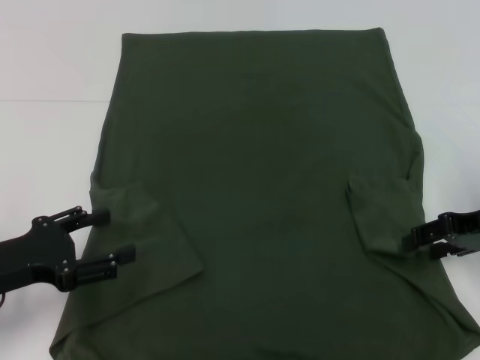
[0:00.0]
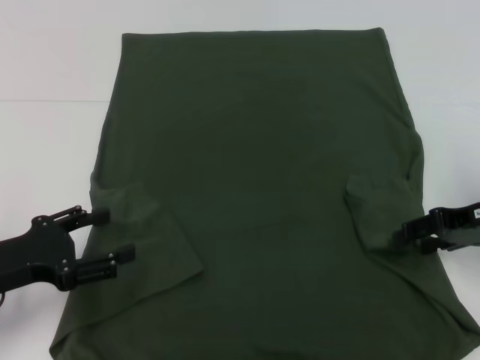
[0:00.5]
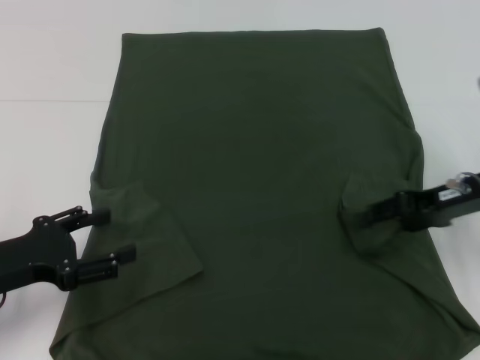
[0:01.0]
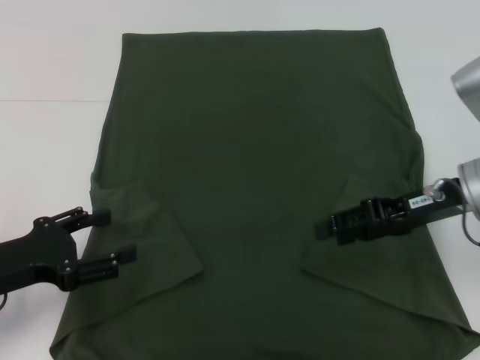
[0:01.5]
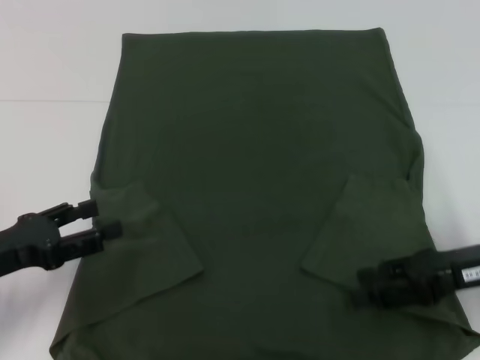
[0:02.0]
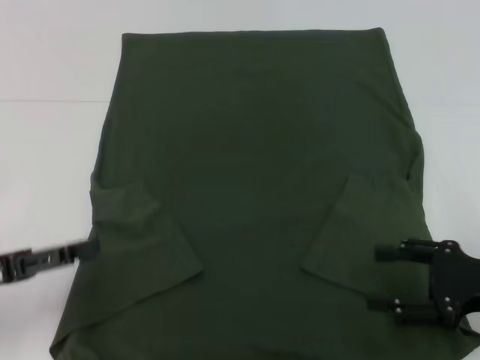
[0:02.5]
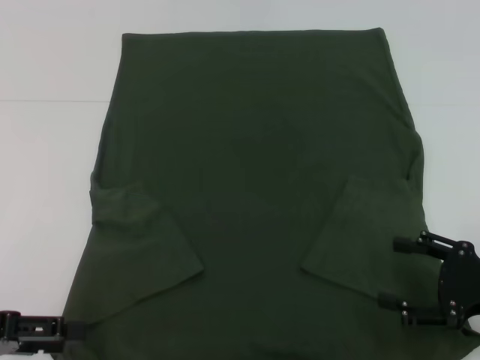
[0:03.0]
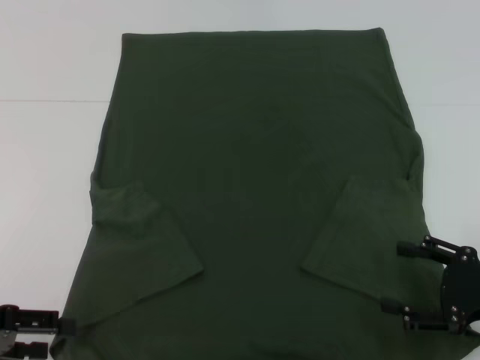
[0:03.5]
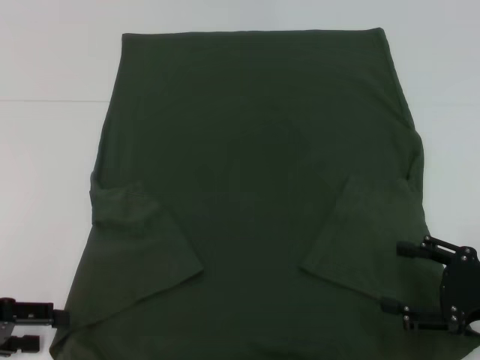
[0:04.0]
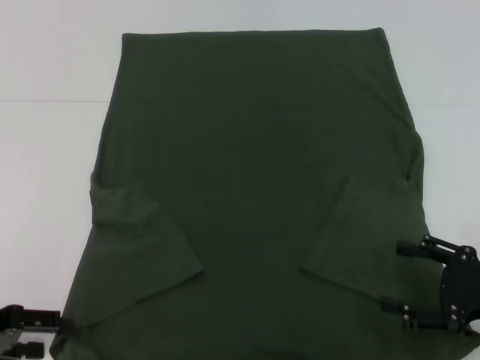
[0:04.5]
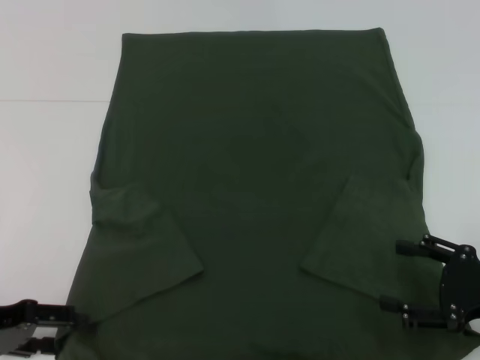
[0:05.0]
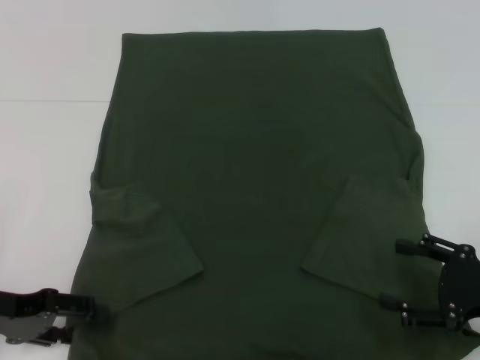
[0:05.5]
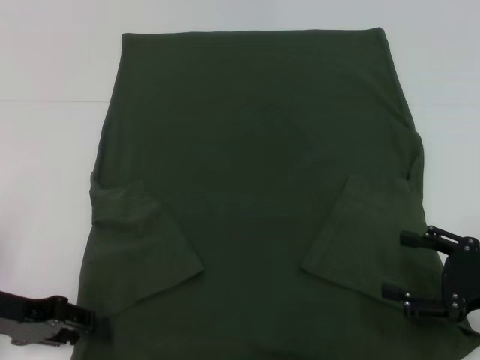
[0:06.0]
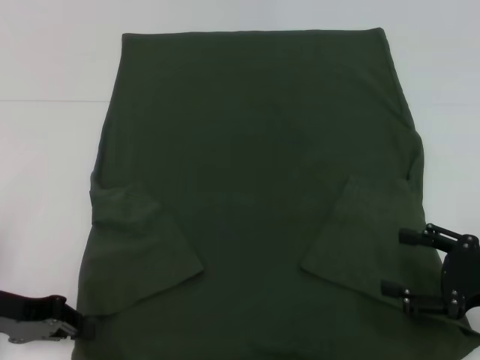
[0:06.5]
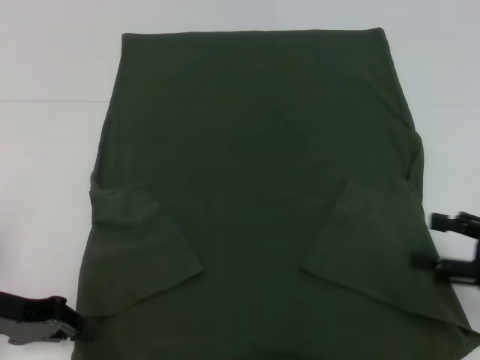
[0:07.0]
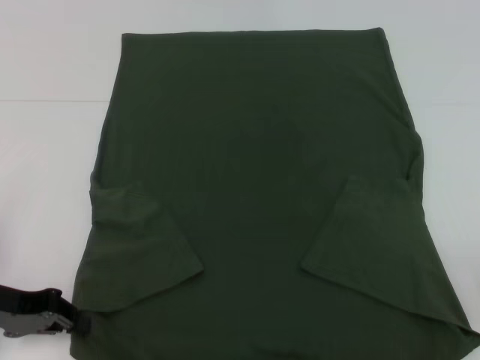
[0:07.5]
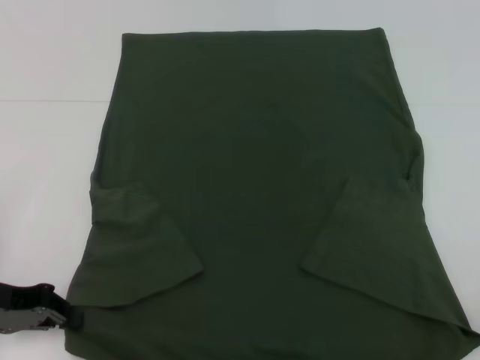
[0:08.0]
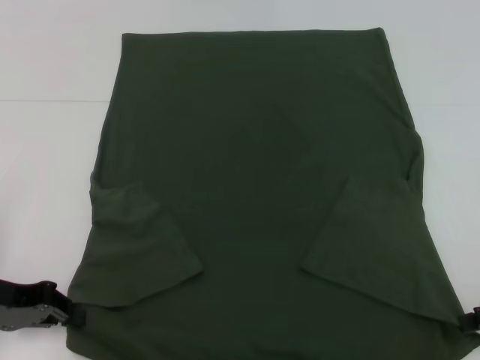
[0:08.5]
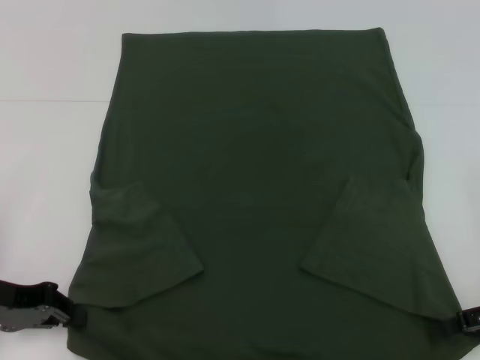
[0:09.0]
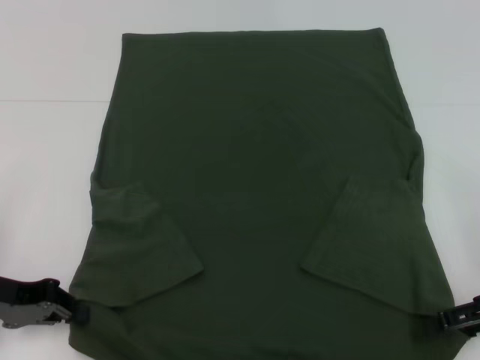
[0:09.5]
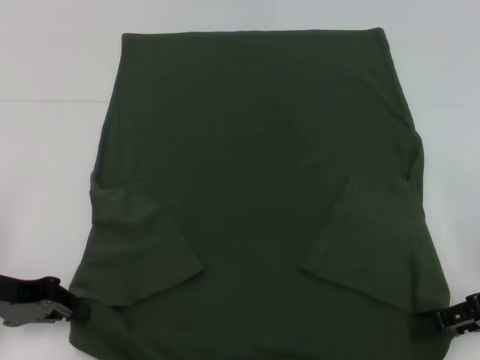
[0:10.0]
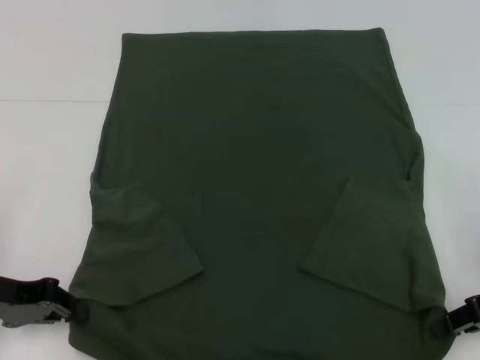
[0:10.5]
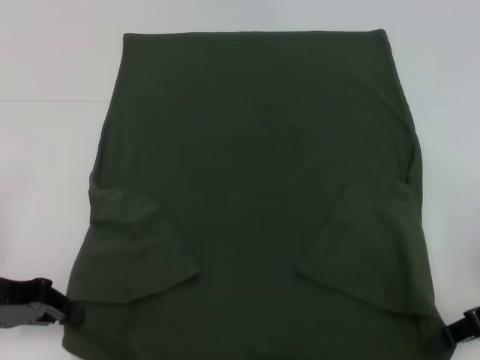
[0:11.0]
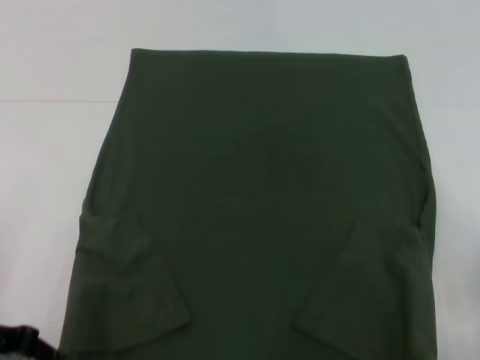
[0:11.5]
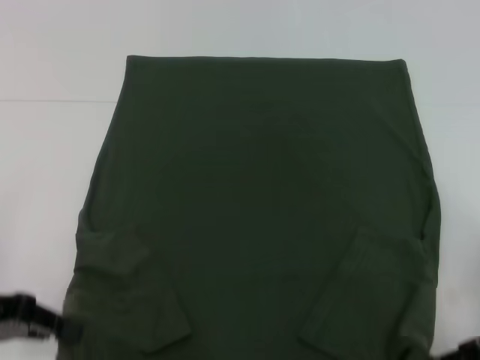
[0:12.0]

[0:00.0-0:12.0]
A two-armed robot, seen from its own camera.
Step, 0:02.0 to 0:06.5: Grab the bottom left corner with your left hand.
Step, 0:07.0 to 0:10.5: Grab the bottom right corner with your right hand.
0:00.0 to 0:02.0: The right gripper moves backward, roughly 5 cm.
0:02.0 to 0:04.0: The right gripper goes approximately 5 cm backward.
0:04.0 to 0:06.0: The left gripper shifts by some 5 cm.
0:06.0 to 0:08.0: The left gripper closes its fingers; the right gripper heads to the right and upward, covering about 10 cm.
0:08.0 to 0:10.0: The right gripper travels to the left by about 5 cm.
0:10.0 to 0:12.0: The right gripper closes its fingers.

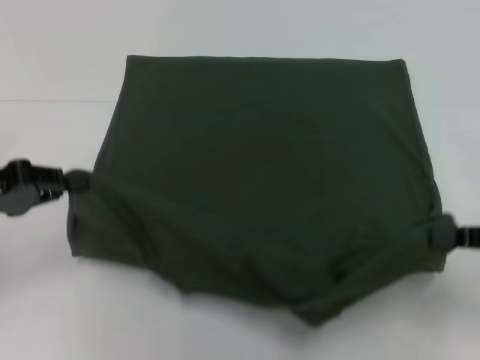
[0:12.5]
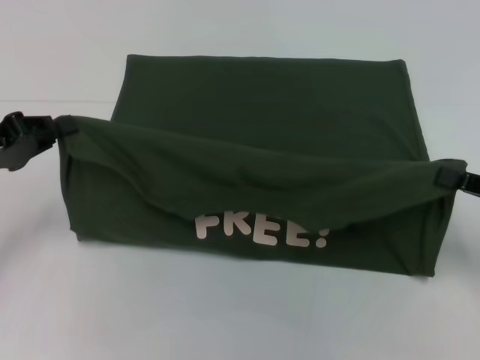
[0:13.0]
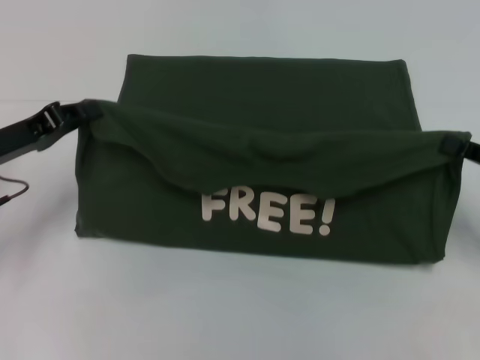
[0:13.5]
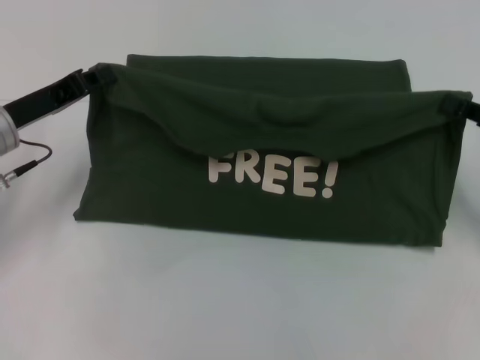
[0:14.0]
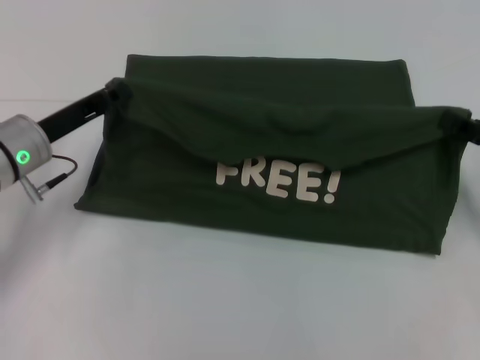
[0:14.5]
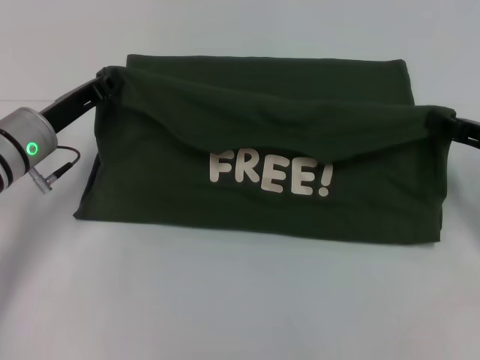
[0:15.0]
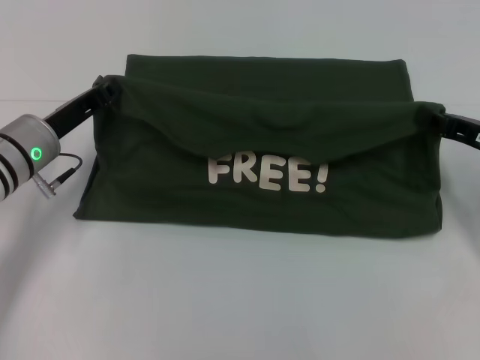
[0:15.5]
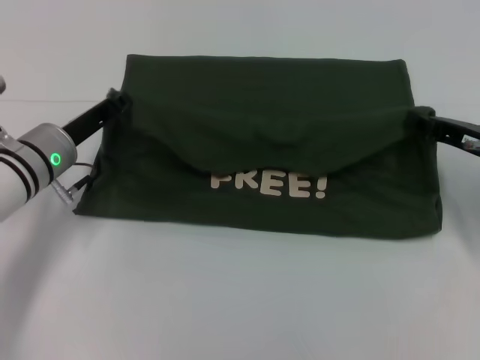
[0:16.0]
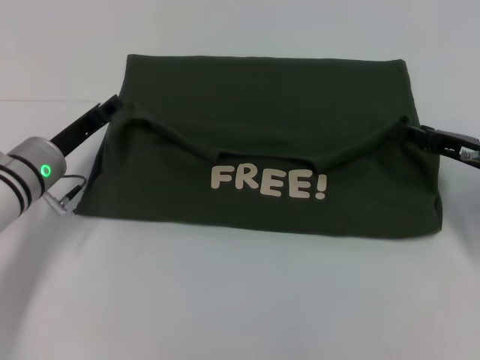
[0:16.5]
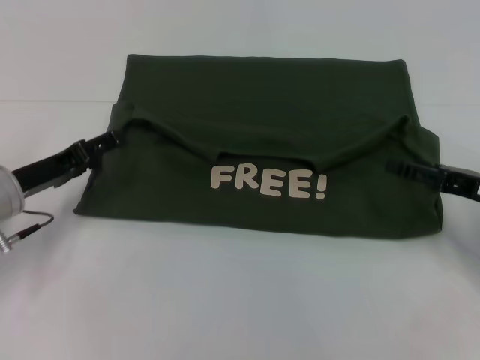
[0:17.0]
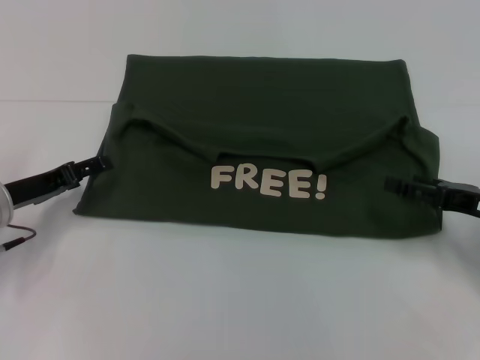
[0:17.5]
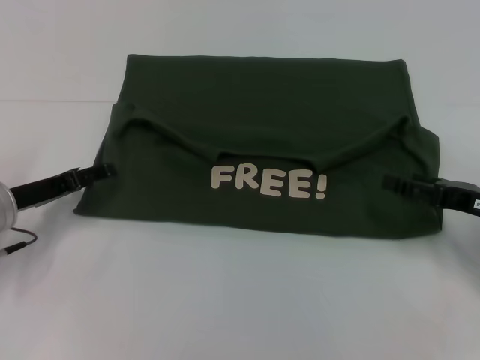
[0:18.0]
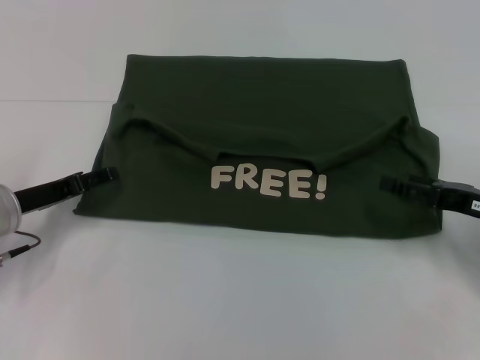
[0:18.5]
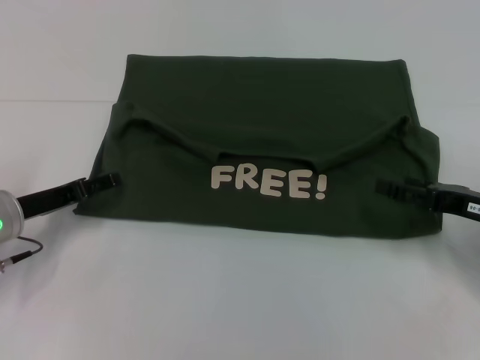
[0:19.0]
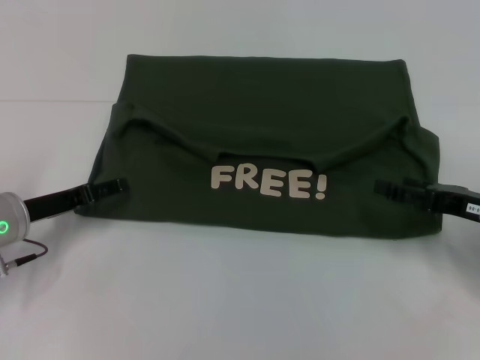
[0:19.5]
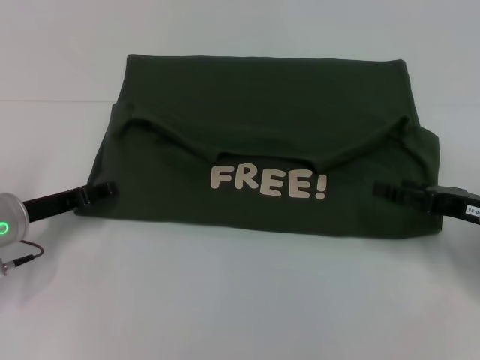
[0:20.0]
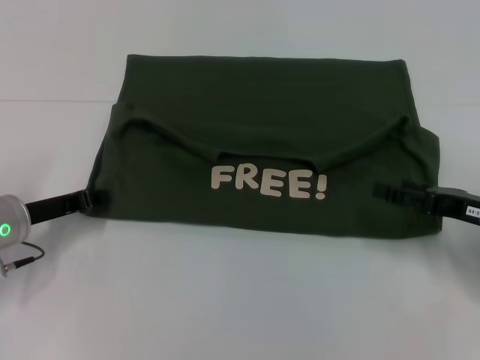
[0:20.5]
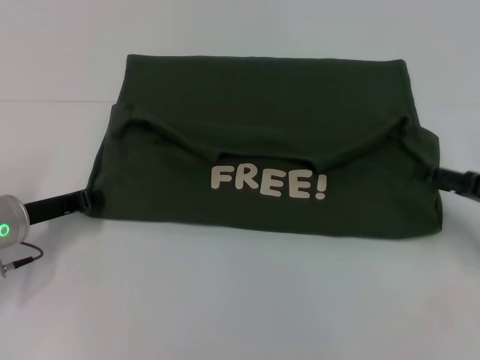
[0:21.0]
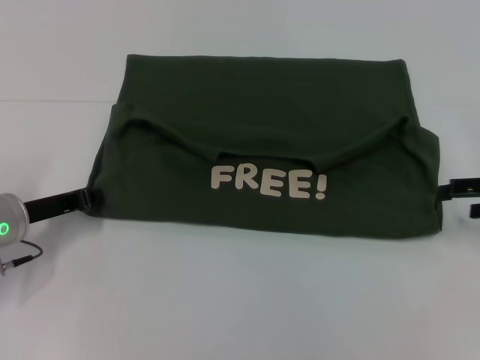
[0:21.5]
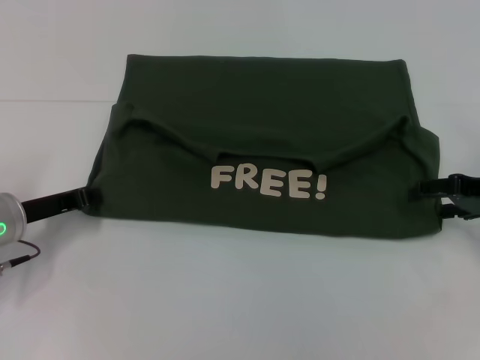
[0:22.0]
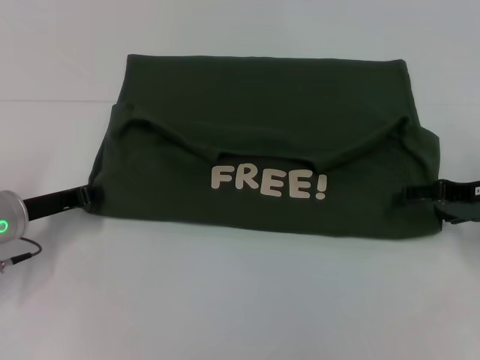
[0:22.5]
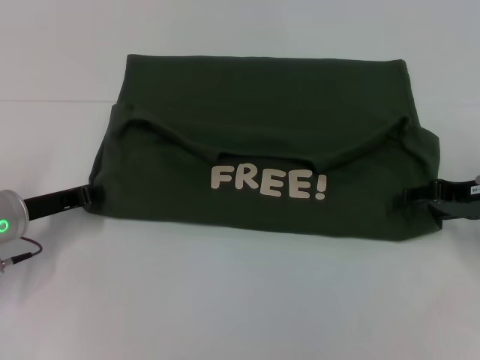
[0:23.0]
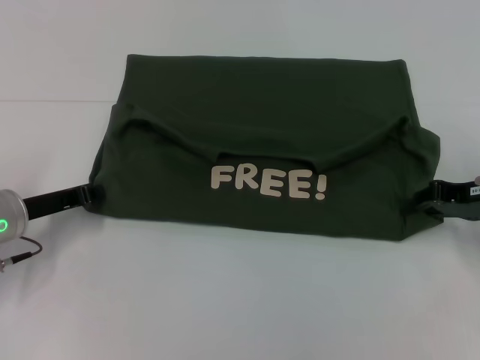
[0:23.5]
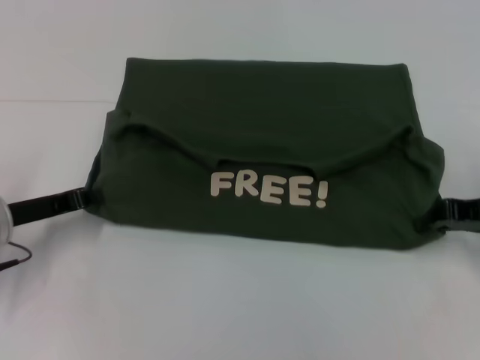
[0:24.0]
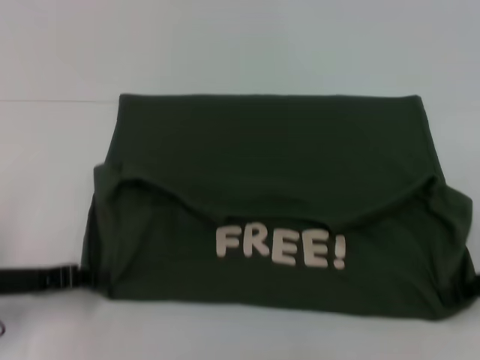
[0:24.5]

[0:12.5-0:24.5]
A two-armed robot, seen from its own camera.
Step, 0:12.5 to 0:16.5: Fold the clothes with your left hand.
Step, 0:12.5 to 0:16.5: Fold the clothes with your right hand.
0:12.5 to 0:14.5: The right gripper travels forward by some 10 cm. The left gripper shifts roughly 10 cm forward and to the right.
0:14.5 to 0:16.5: The left gripper opens. Meanwhile the right gripper moves approximately 5 cm.
0:16.5 to 0:18.5: The right gripper is displaced backward by approximately 5 cm, and opens. Meanwhile the left gripper moves to the left, approximately 5 cm, and opens.
0:18.5 to 0:20.5: The left gripper closes.
0:20.5 to 0:22.5: The left gripper closes up. Meanwhile the right gripper is displaced forward by roughly 5 cm.
0:22.5 to 0:24.5: Both grippers travel together backward, approximately 5 cm. The right gripper closes its fingers.

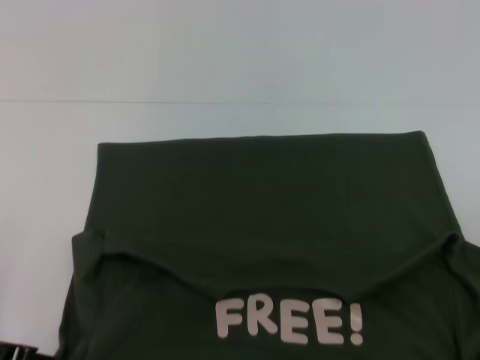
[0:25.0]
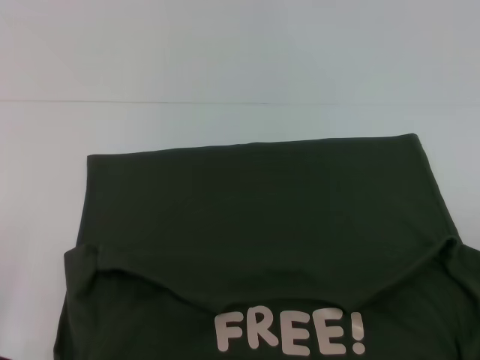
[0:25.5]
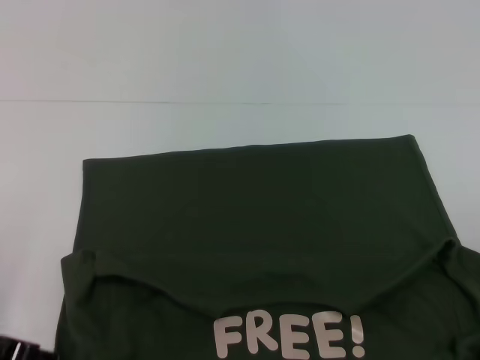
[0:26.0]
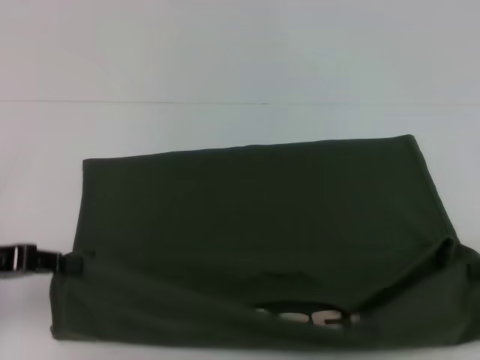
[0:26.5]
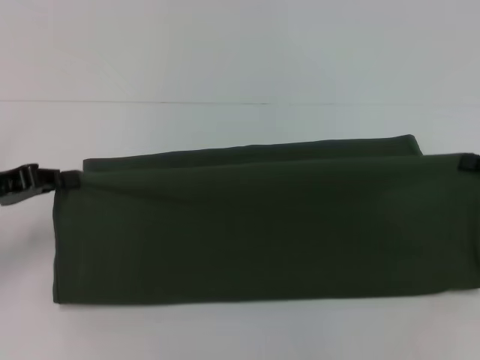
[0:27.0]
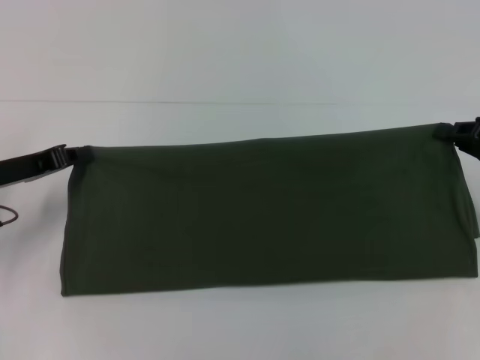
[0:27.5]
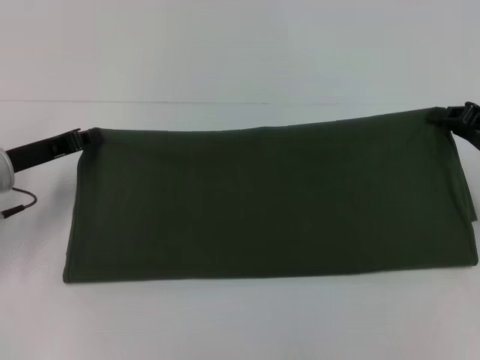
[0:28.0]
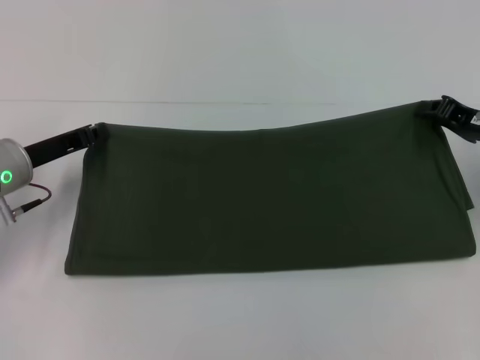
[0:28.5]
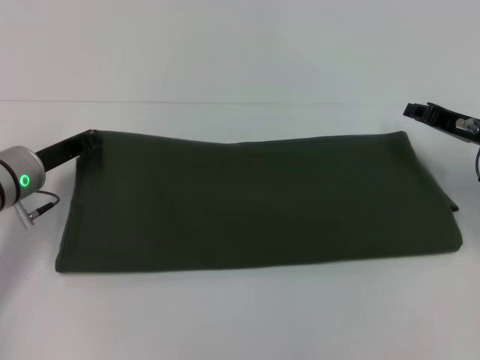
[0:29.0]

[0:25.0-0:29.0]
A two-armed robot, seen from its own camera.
0:25.0 to 0:27.0: Both grippers move forward, about 5 cm.
0:27.0 to 0:29.0: The right gripper goes some 10 cm to the left and forward; the left gripper is displaced to the right, forward and downward by roughly 10 cm.
